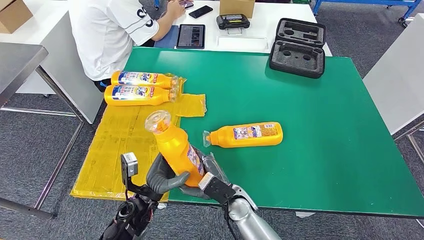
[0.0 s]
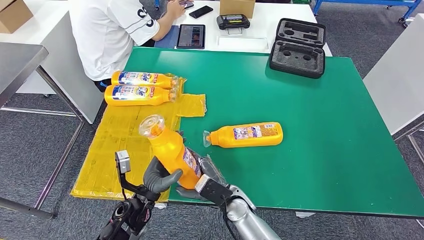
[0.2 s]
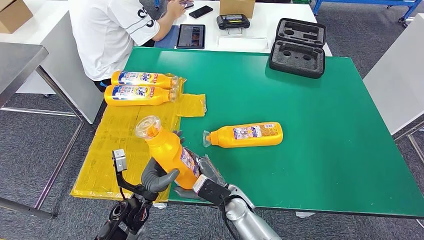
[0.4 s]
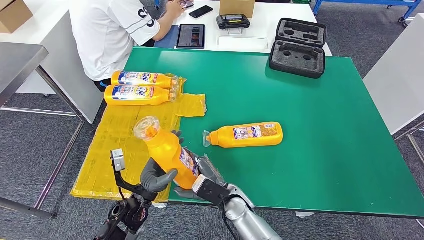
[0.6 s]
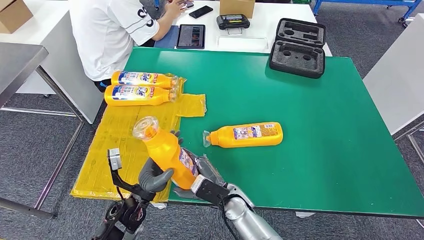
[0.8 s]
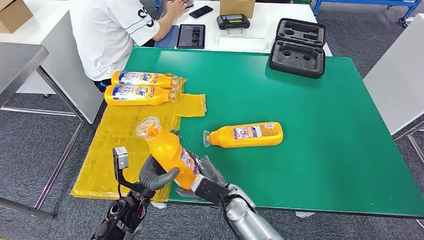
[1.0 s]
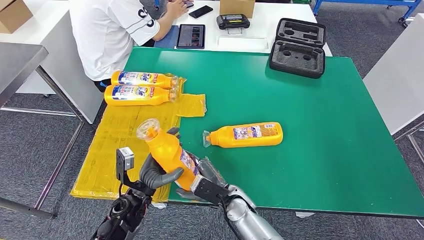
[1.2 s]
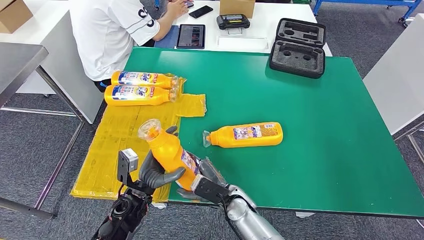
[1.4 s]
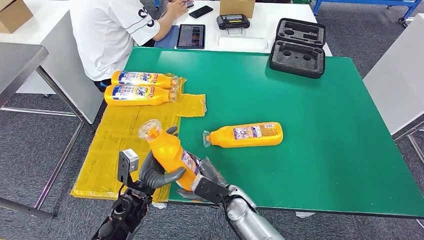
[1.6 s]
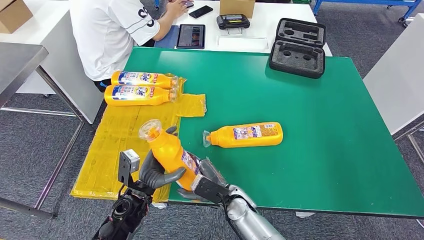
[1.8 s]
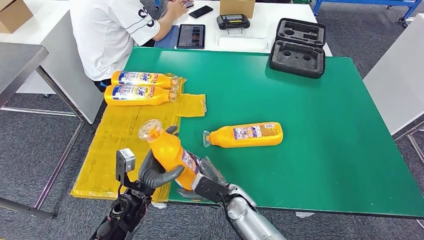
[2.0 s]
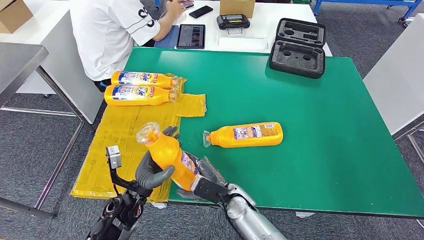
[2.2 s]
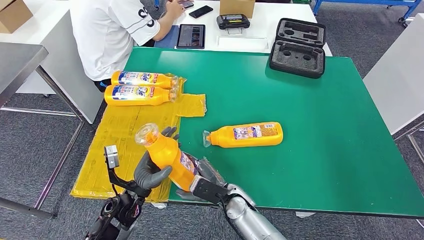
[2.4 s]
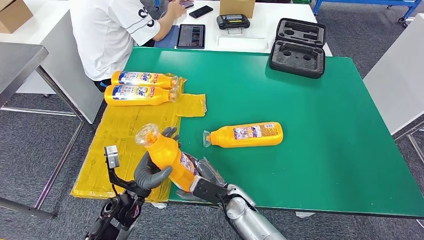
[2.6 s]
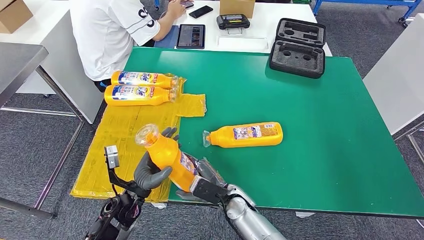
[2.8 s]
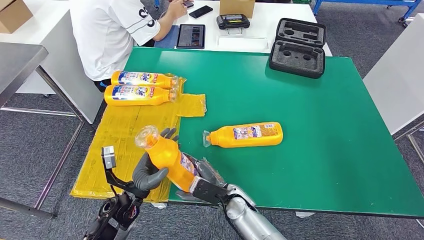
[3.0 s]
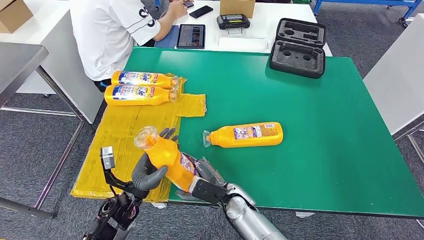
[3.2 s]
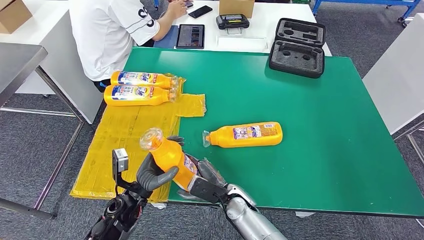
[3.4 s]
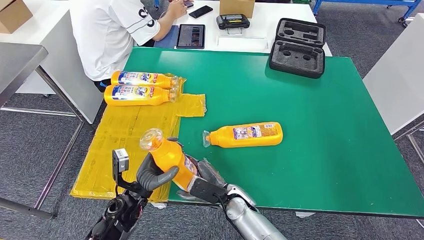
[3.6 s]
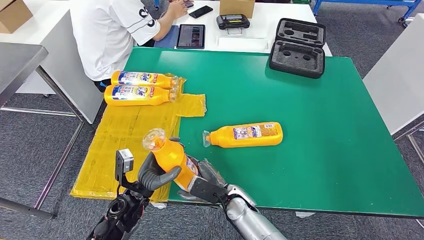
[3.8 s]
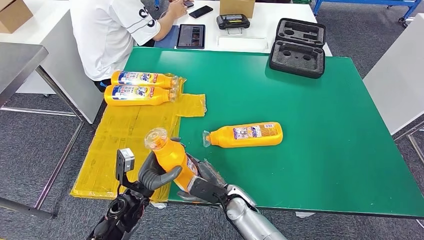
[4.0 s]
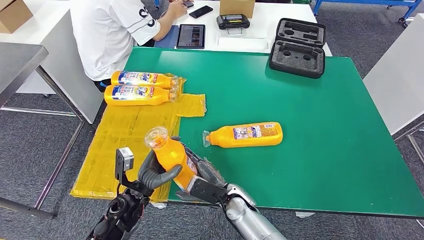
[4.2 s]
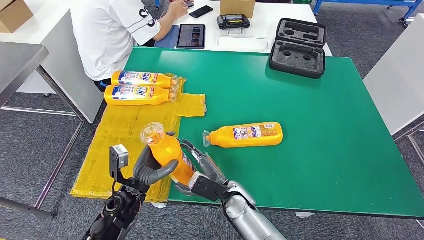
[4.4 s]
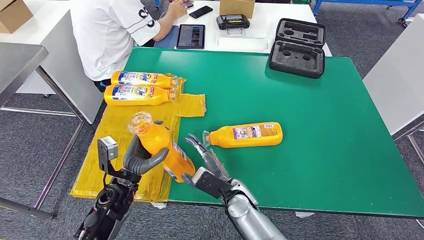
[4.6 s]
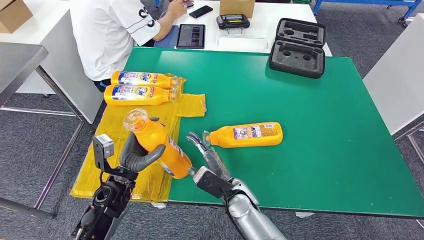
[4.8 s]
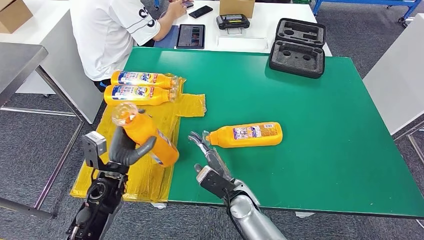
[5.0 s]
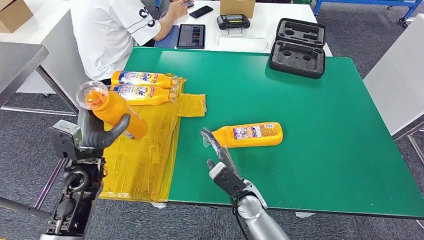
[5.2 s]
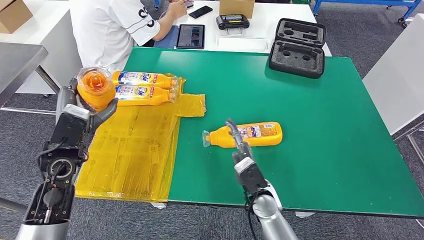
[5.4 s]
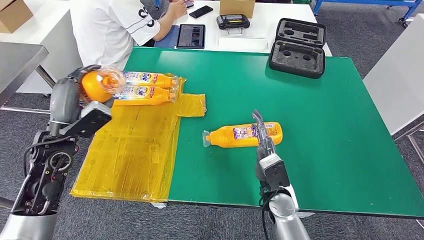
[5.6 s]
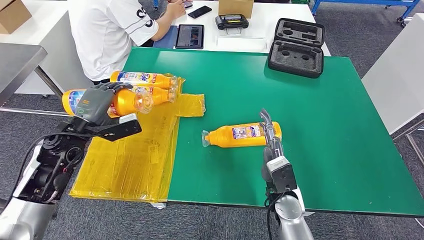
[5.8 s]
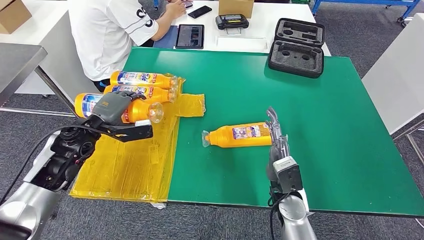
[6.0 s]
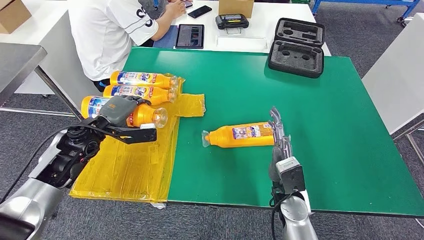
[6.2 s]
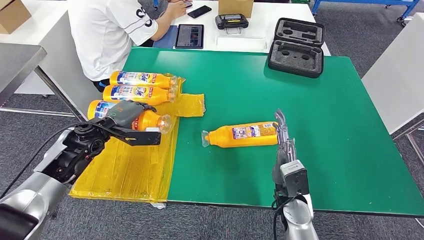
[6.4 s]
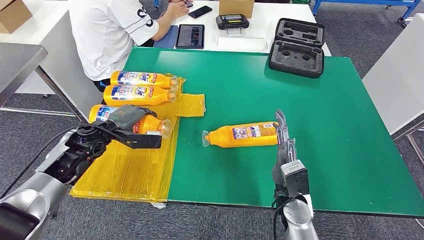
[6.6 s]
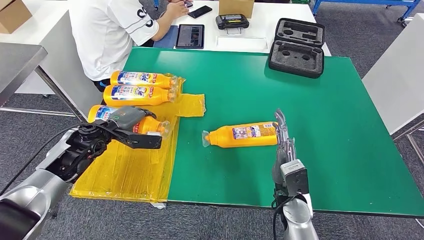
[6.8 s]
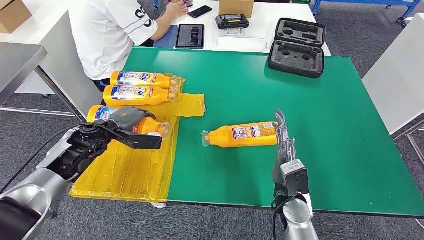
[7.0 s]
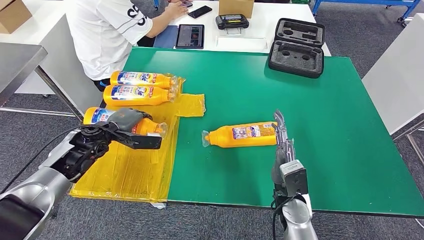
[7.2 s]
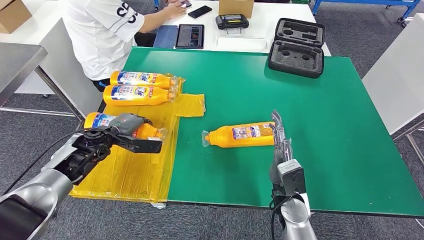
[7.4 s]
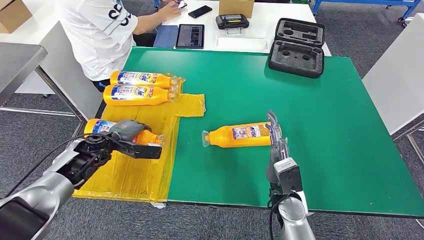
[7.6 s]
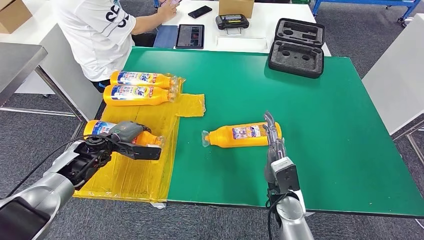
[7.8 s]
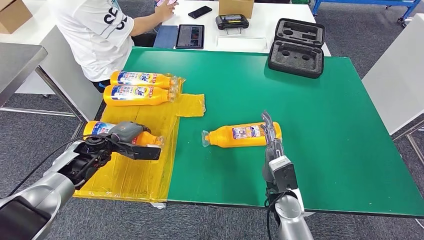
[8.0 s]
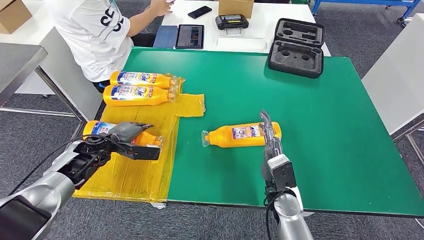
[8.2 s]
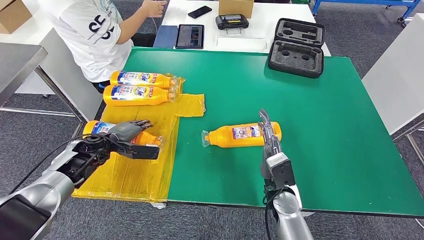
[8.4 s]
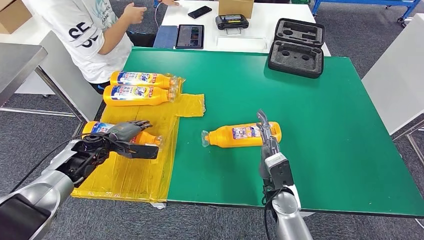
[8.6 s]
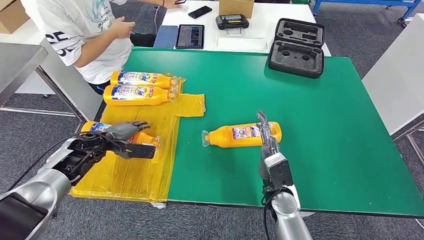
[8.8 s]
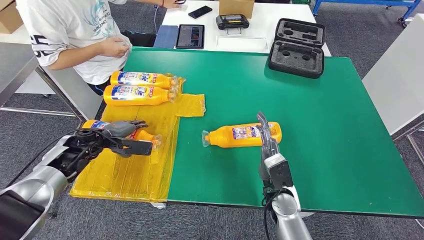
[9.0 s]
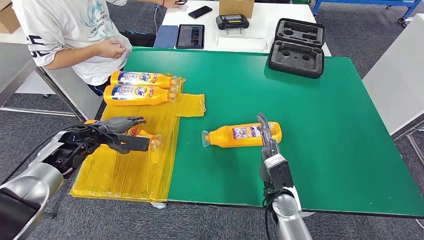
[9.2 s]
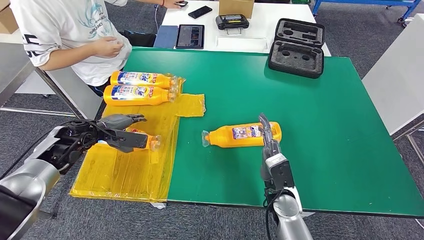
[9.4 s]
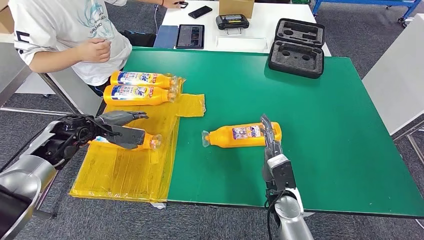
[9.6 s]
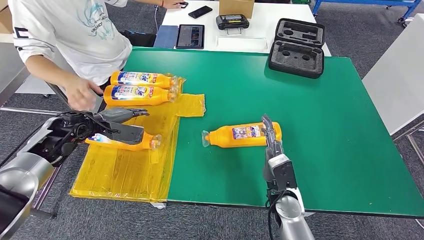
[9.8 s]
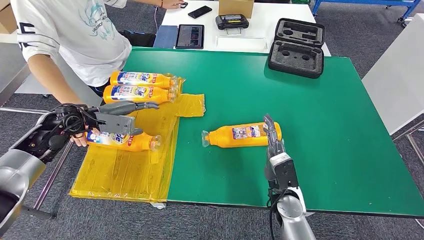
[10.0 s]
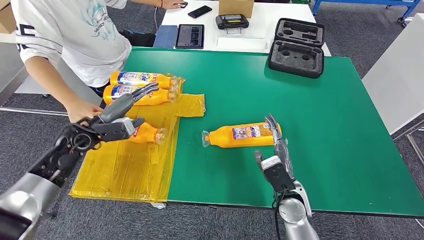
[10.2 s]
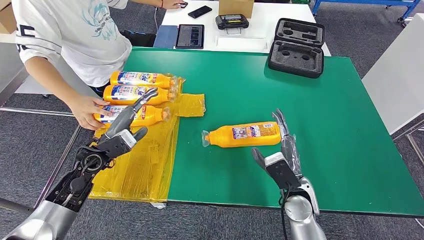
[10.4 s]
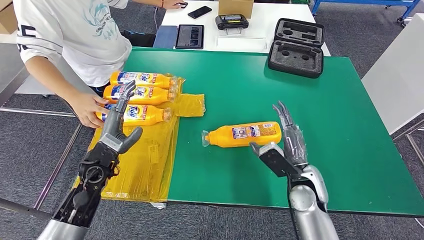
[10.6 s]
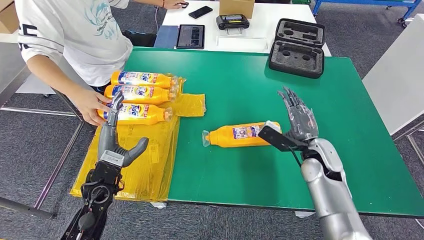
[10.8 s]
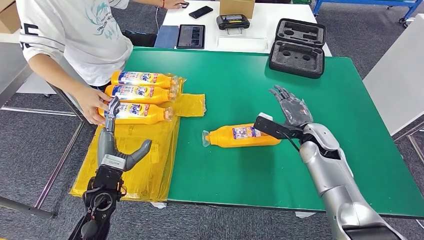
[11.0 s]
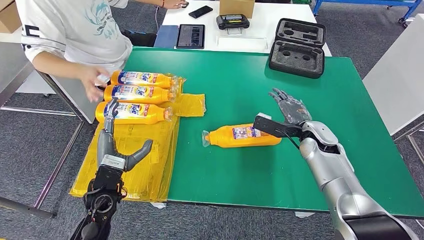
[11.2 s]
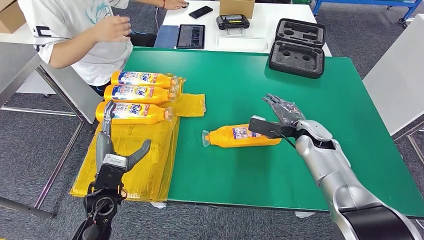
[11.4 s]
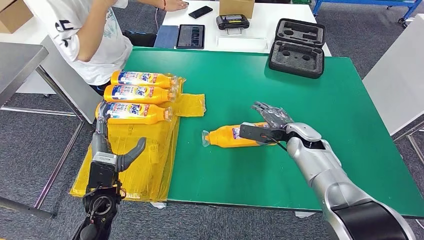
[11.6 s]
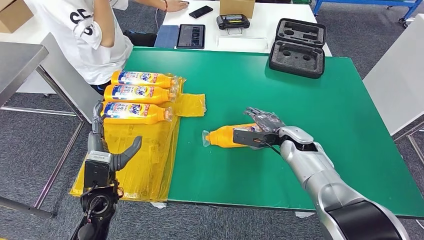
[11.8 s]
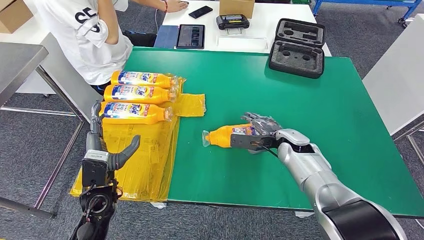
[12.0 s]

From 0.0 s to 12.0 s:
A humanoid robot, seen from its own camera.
Step, from 0.0 s to 7.4 s: Flip the bottle to face forward.
From 0.0 s to 1.6 s: The hands make only small movements.
From 6.0 s to 7.6 s: The left hand shifts some 10 cm downward.
From 7.6 s to 9.0 s: The hands stay close to where they were, moving slightly.
From 9.0 s to 10.4 s: The left hand moves to the right and backward, approximately 10 cm, and moves approximately 10 cm upward and comes back.

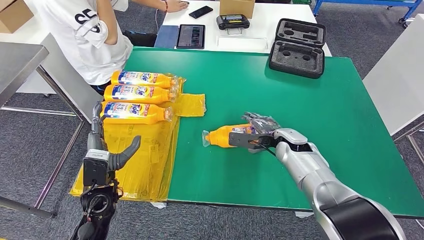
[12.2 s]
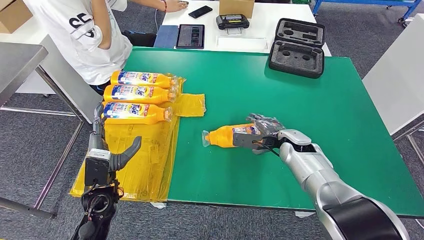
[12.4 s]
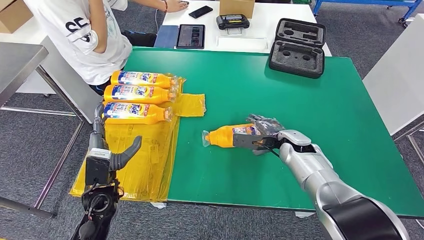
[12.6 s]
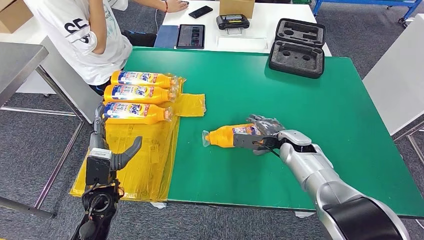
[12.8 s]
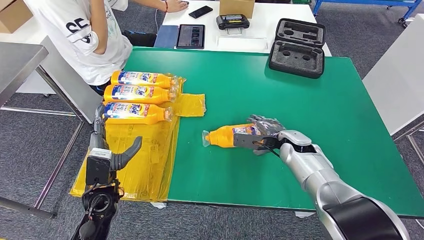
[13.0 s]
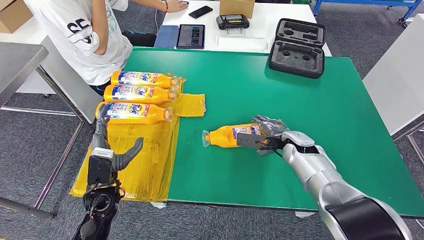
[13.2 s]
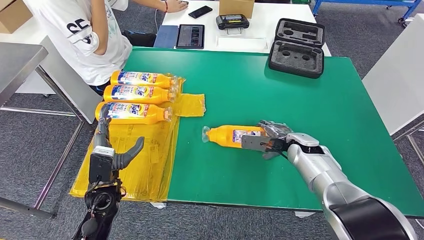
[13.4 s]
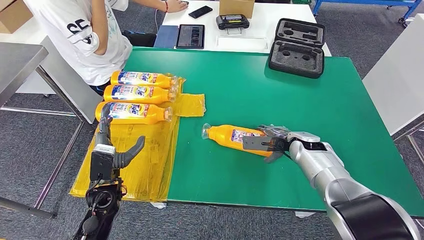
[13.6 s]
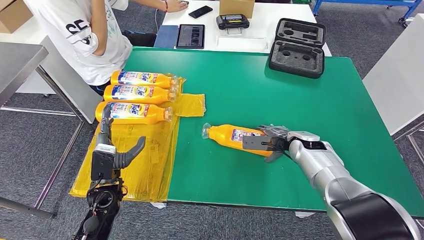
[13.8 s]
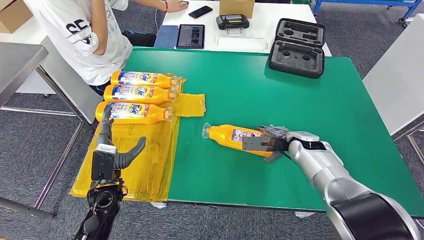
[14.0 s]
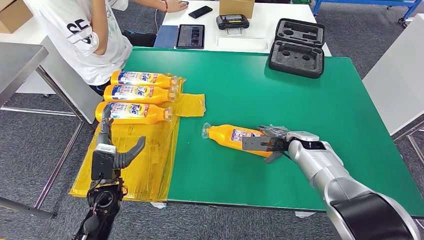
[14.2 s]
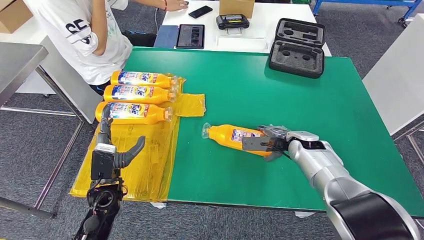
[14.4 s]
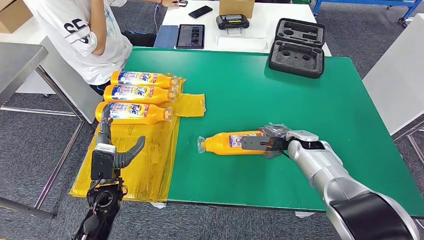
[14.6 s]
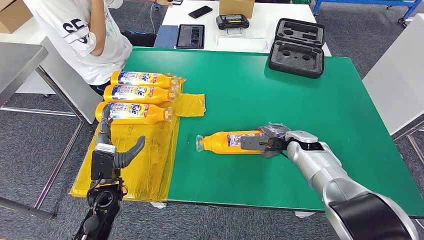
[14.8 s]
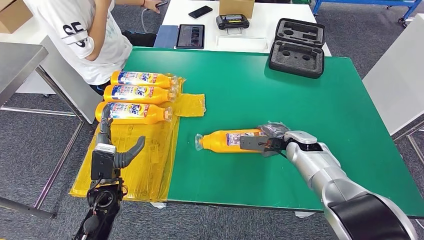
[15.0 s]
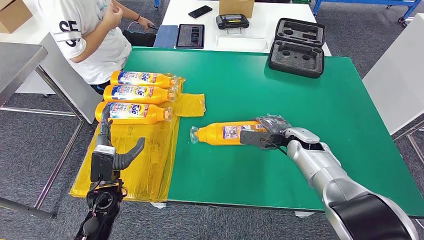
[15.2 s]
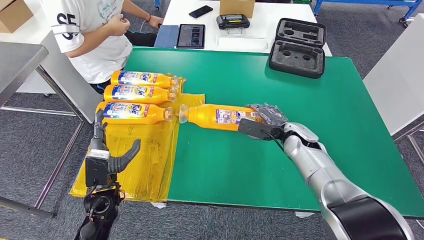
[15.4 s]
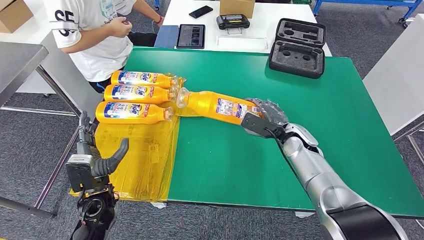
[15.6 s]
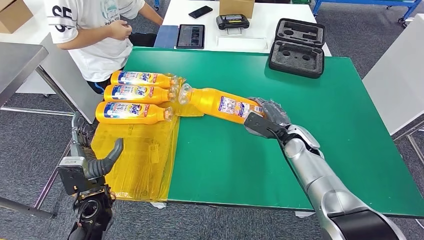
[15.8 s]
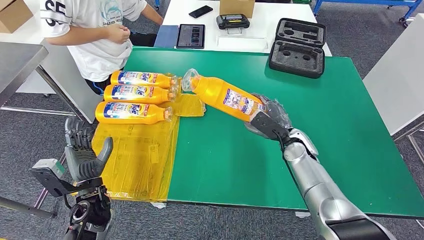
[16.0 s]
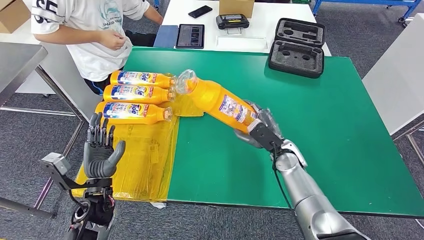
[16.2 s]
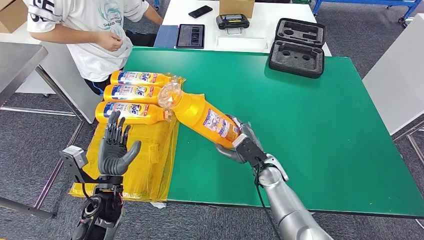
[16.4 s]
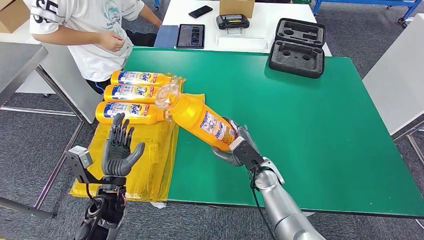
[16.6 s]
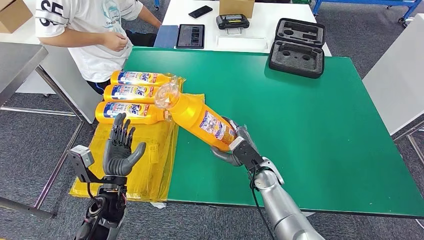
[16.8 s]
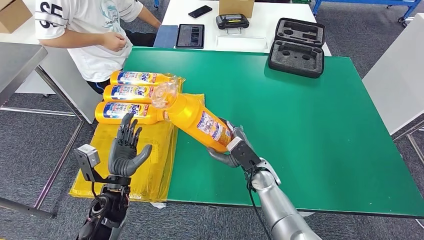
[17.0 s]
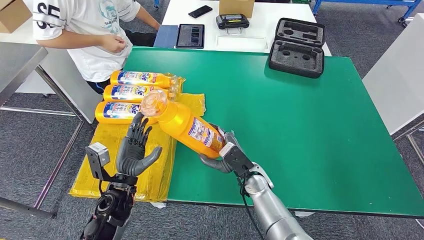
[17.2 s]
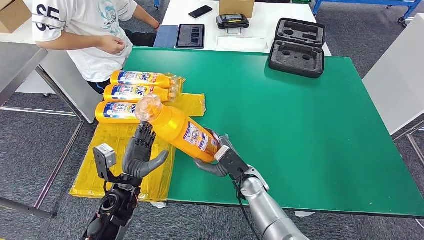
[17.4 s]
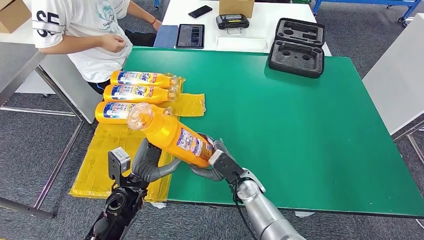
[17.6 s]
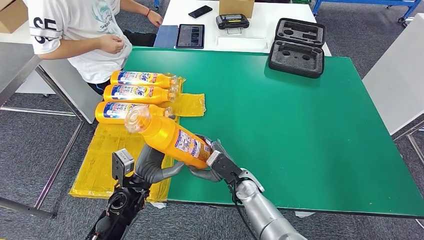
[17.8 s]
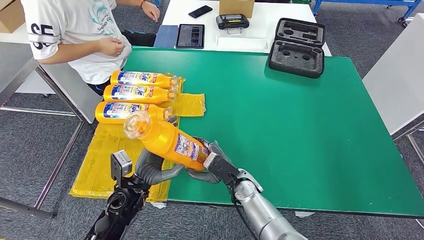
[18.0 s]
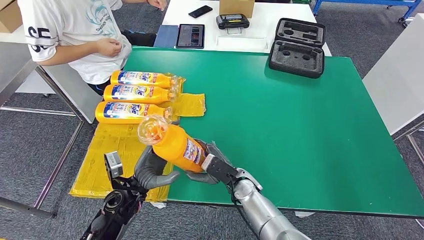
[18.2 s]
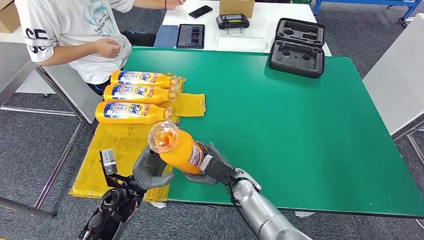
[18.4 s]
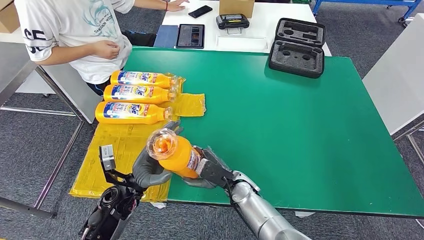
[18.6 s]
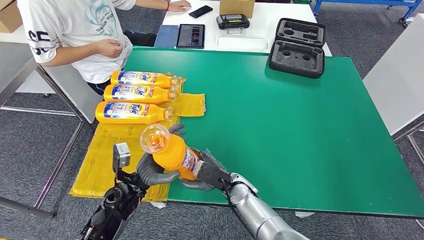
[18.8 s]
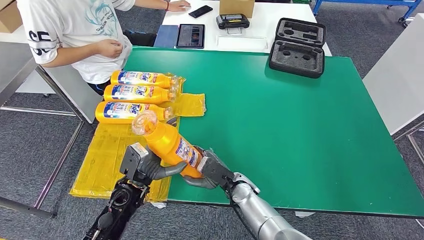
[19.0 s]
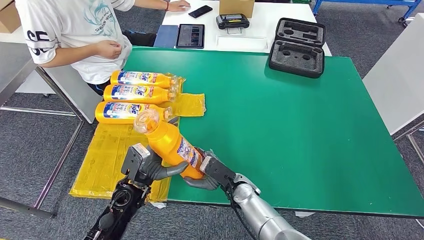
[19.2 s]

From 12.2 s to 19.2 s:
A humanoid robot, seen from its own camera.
Step, from 12.2 s to 17.4 s: Pick up the bottle from the table.
From 12.2 s to 15.0 s: The hands make only small movements.
